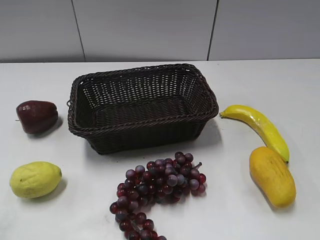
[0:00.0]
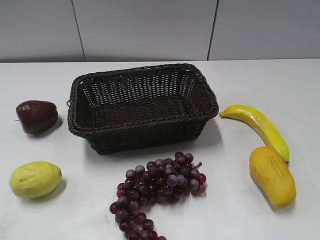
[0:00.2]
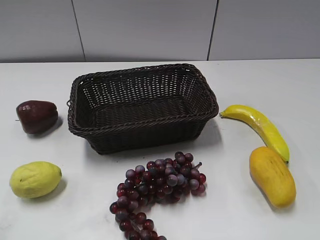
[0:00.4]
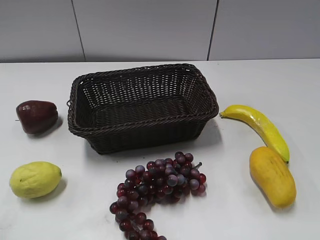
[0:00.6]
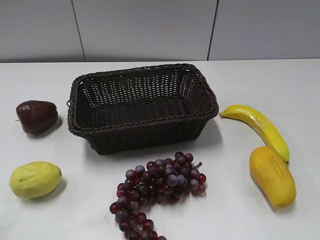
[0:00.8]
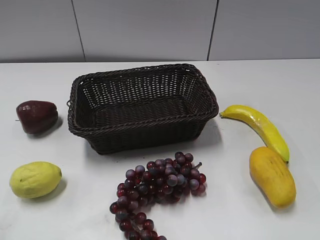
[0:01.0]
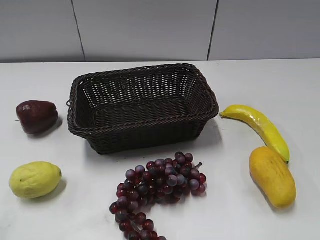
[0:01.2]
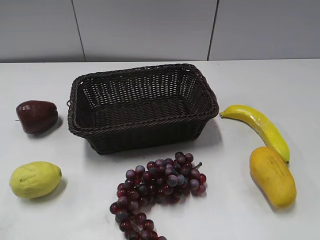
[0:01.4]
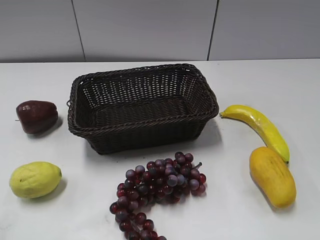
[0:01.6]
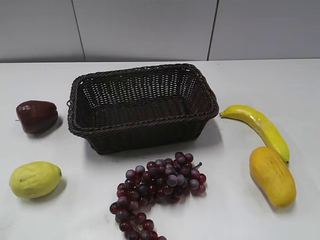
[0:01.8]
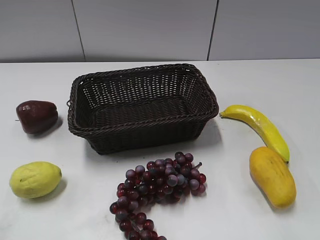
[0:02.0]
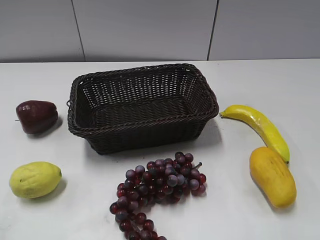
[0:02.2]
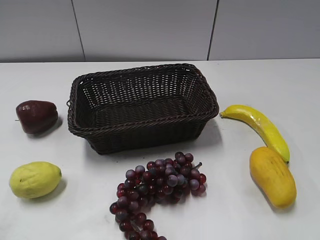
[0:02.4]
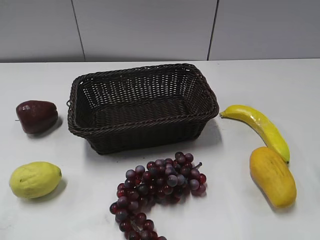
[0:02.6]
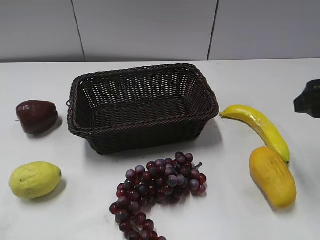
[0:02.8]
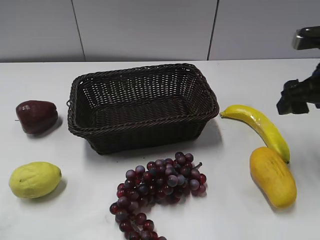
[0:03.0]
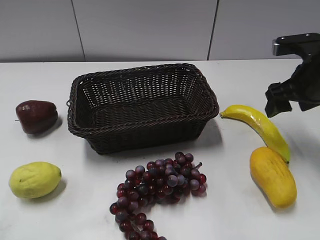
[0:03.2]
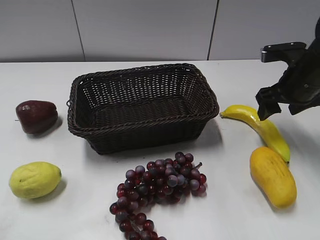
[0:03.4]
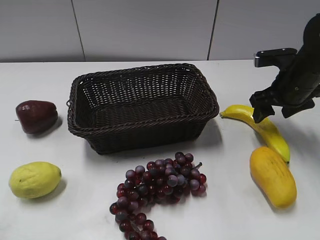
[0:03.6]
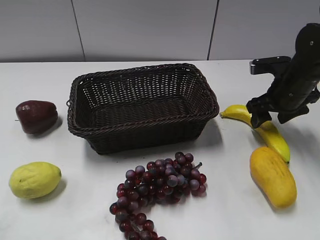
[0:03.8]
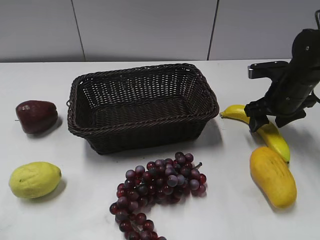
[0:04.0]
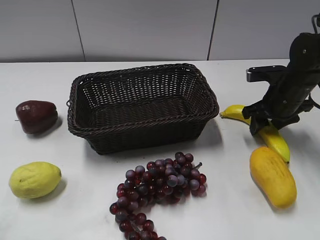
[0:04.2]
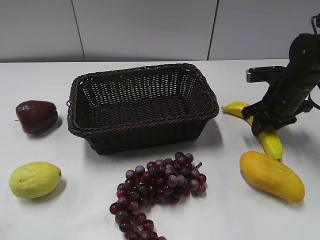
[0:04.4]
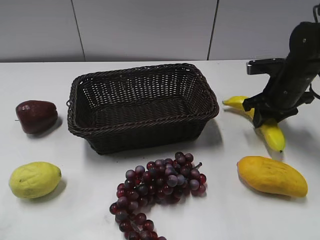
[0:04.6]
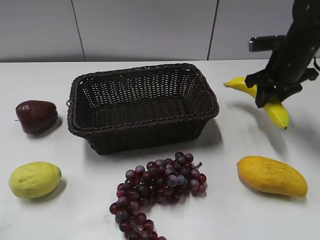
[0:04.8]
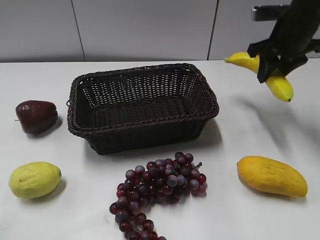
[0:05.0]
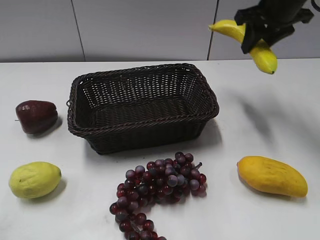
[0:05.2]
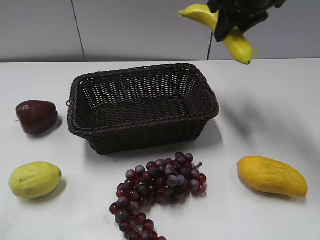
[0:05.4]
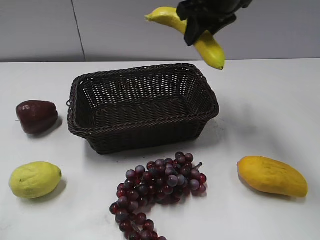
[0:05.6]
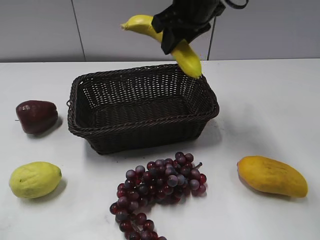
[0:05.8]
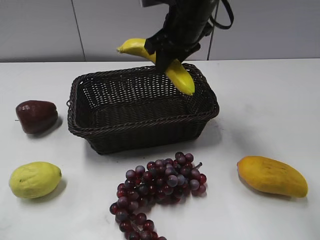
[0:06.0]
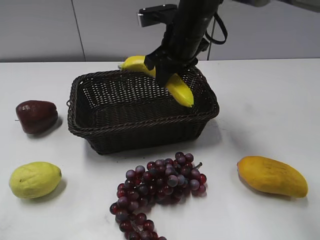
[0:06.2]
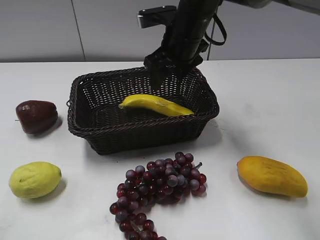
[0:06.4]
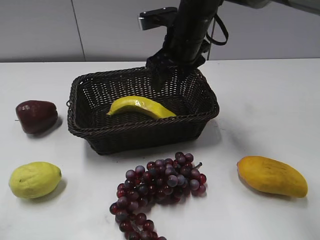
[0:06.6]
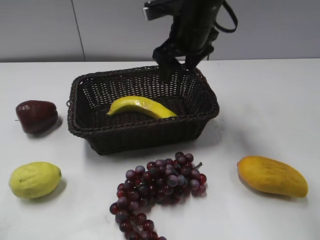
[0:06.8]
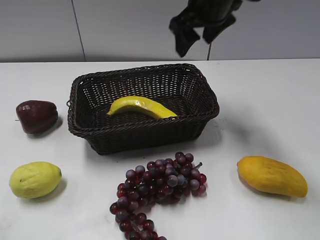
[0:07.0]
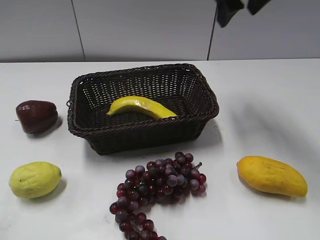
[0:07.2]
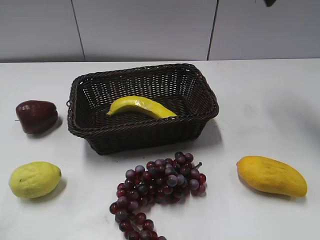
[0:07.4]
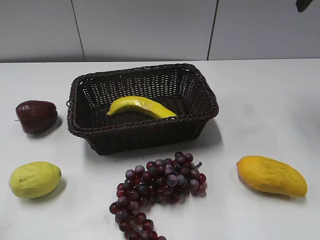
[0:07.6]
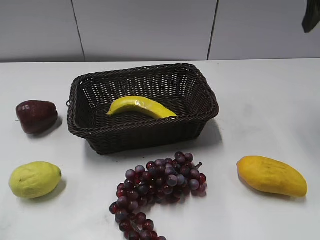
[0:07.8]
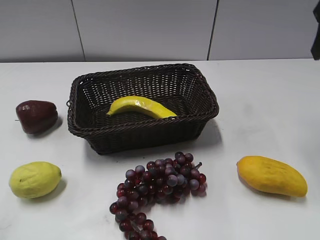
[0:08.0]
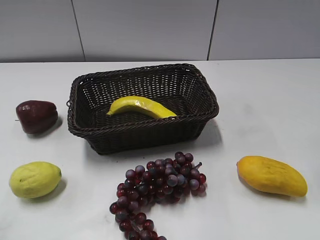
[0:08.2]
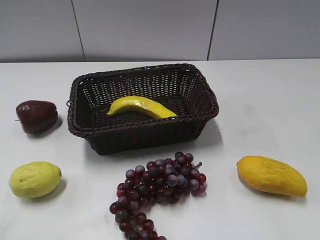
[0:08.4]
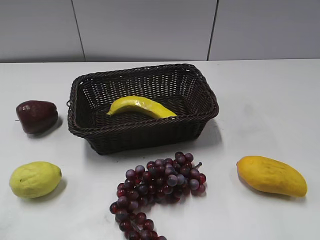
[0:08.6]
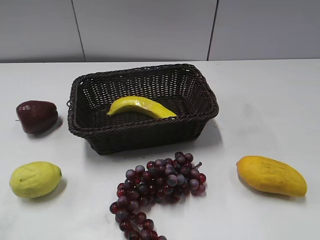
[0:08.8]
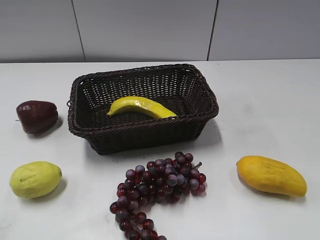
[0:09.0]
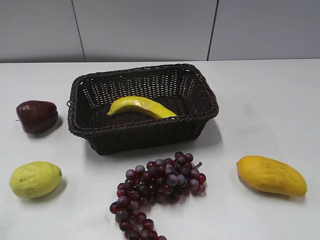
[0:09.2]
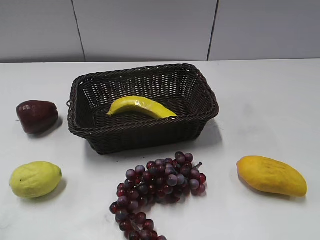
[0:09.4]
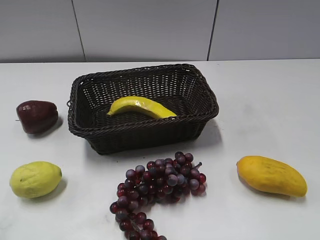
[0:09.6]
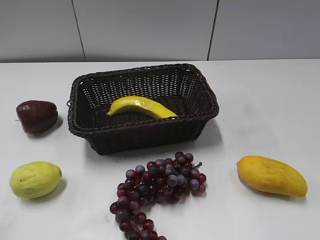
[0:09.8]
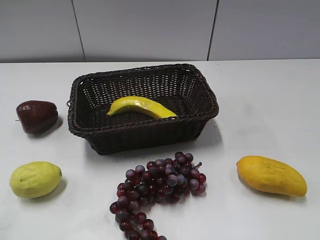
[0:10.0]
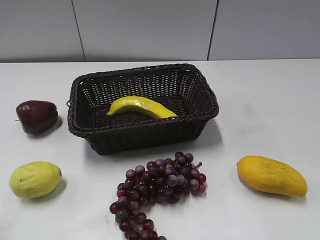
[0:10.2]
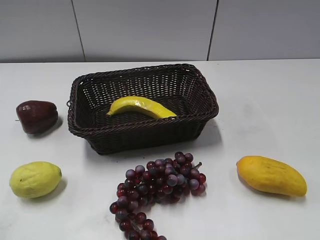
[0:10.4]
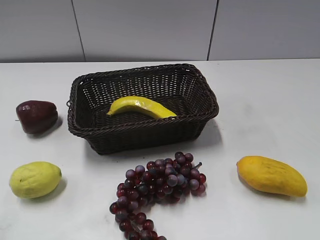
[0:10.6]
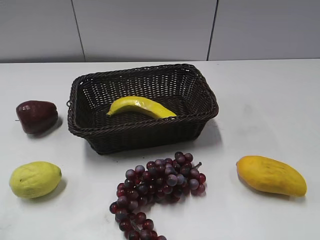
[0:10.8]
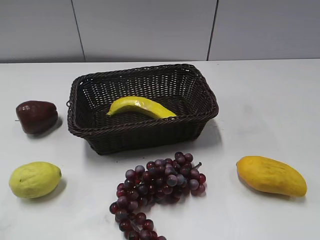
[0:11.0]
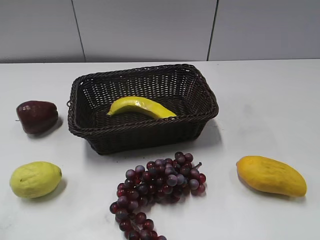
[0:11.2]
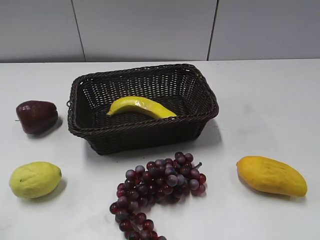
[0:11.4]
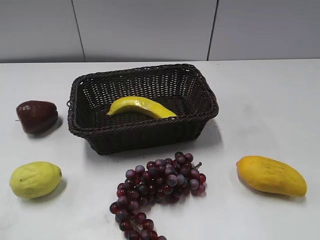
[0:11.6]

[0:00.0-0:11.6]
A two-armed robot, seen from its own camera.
Step, 0:02.6 to 0:04.4: Grasp the banana with right gripper.
Step, 0:04.6 to 0:06.6: Place the banana in the basket with right gripper.
0:01.4 to 0:02.8: The right gripper is displaced forward by about 25 cm.
0:02.8 to 0:04.4: The right gripper goes roughly 20 cm forward and downward, and closes its fingers.
0:04.4 to 0:05.8: The right gripper shifts about 25 cm to the left and upward.
0:05.8 to 0:07.2: The right gripper heads to the right and upward, covering some 10 cm, and opens its fingers.
0:07.2 to 0:08.8: The right gripper travels backward by approximately 35 cm.
